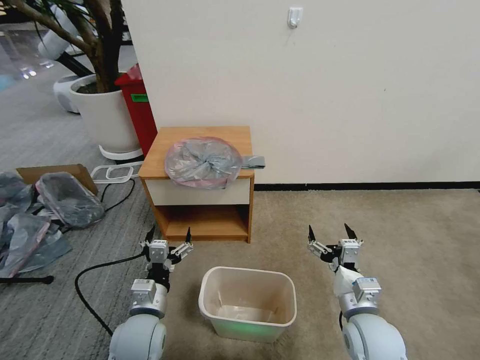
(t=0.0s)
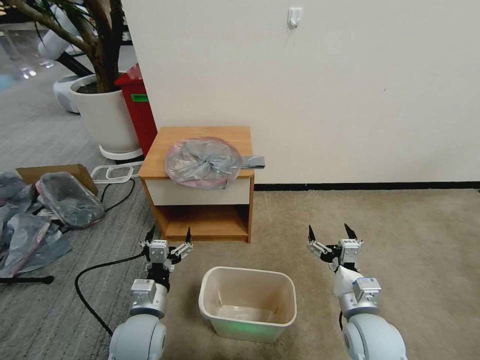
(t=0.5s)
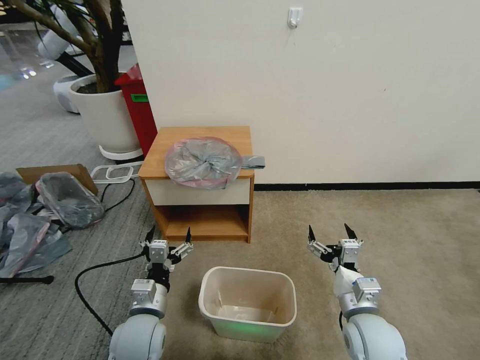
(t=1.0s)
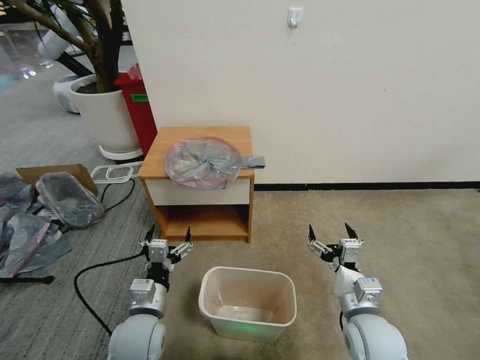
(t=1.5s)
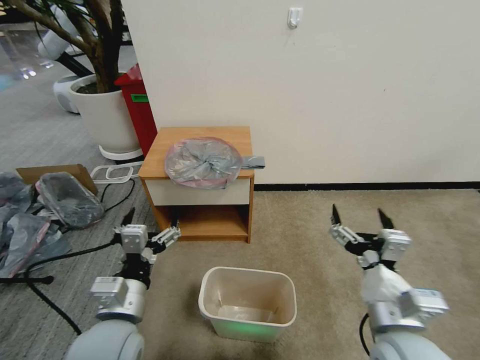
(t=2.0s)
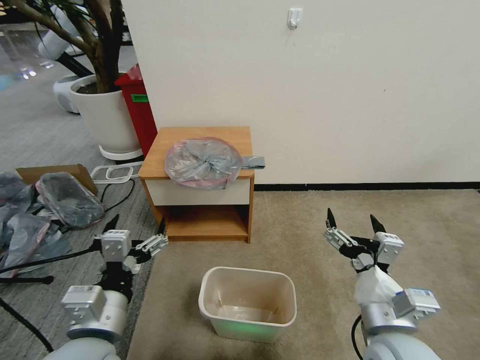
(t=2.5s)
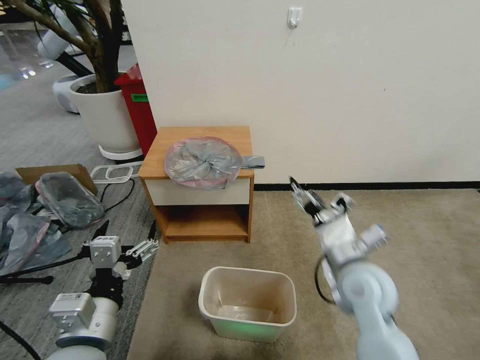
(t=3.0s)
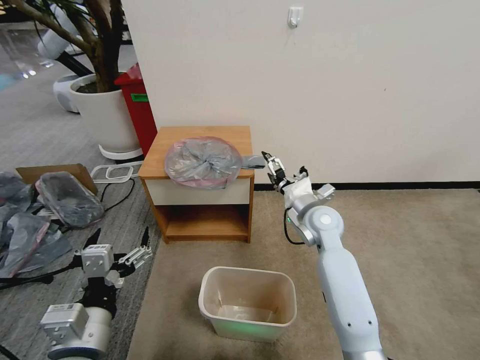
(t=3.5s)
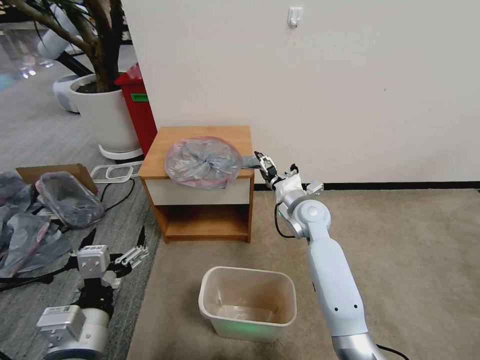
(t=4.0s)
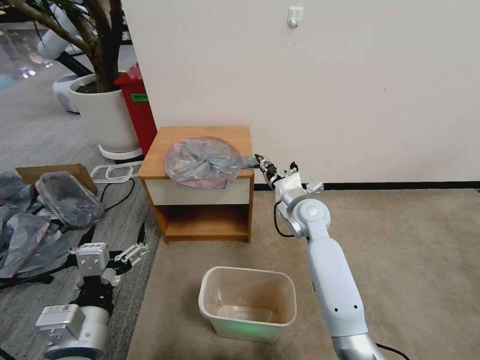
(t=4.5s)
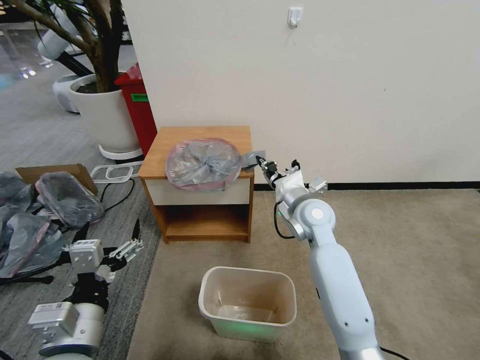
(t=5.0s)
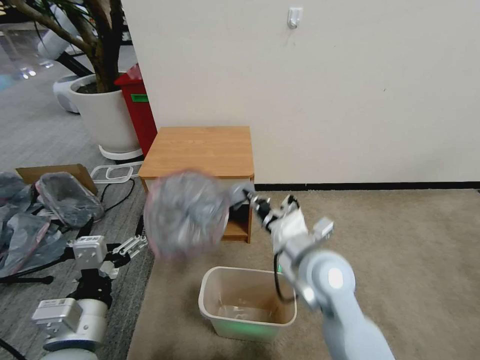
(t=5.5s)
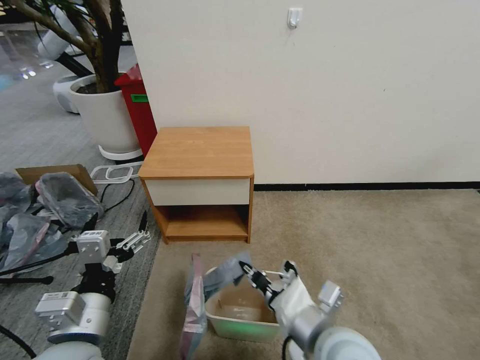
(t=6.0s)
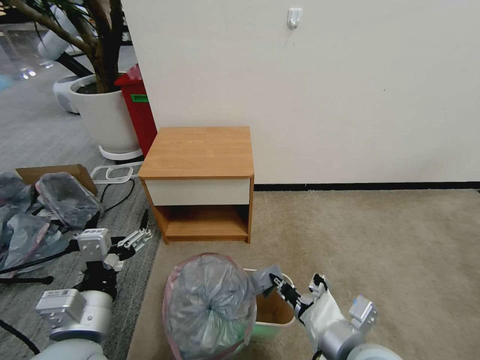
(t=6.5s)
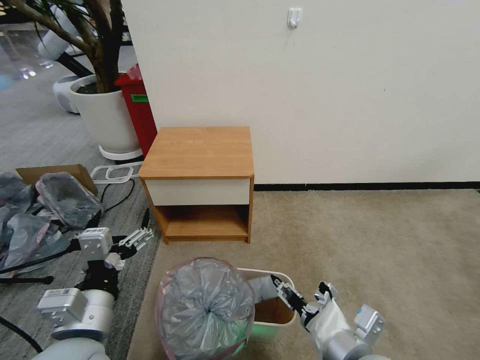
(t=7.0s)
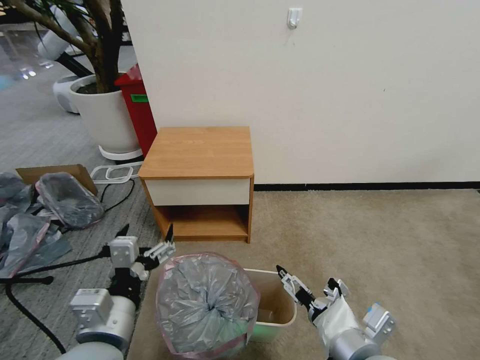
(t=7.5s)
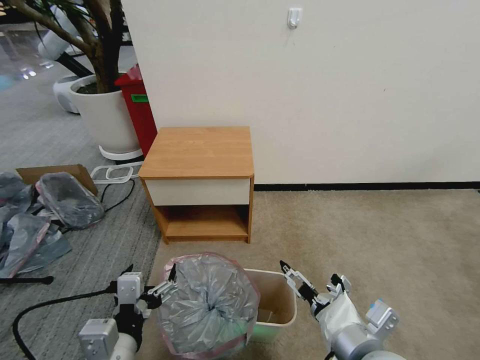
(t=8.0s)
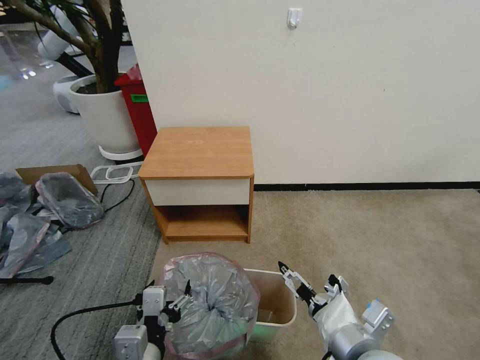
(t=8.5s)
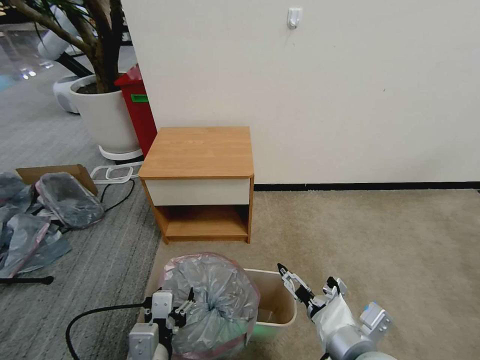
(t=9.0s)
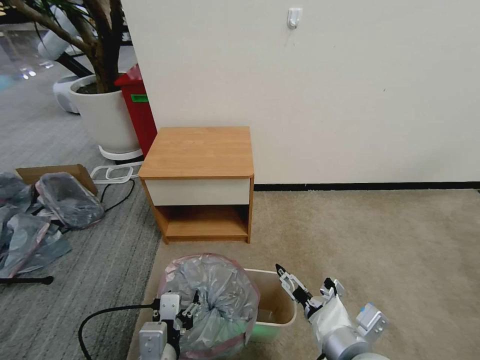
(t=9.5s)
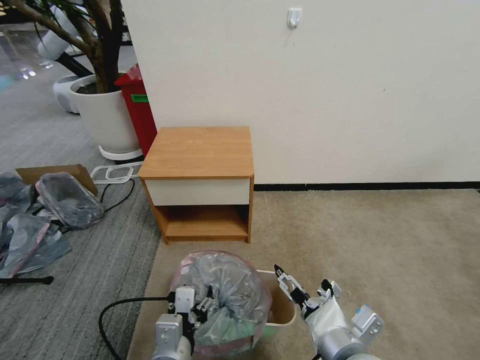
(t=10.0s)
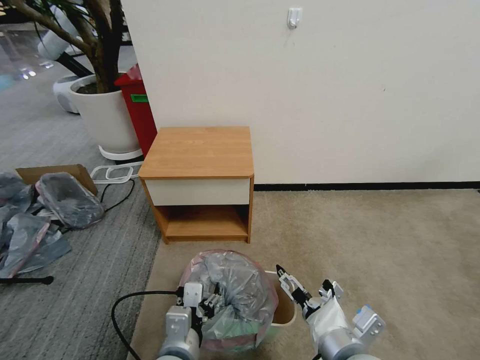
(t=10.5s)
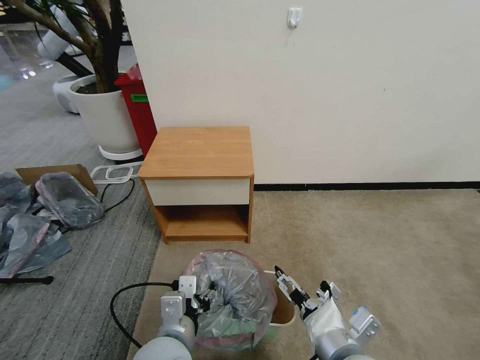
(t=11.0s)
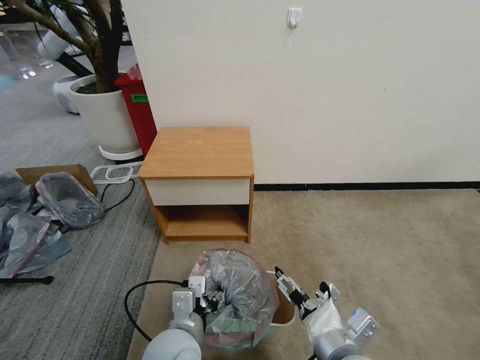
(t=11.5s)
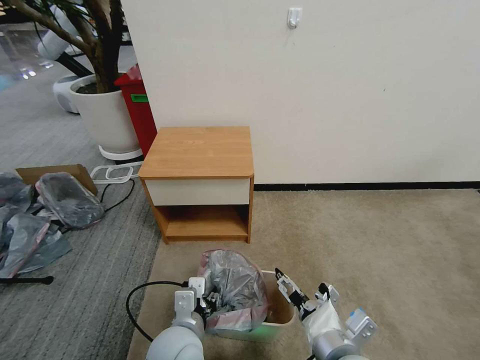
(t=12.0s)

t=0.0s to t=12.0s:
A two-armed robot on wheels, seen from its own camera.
Task of the whole recording: Pick up the garbage bag from the table and place it over the trash can.
t=2.0s to t=4.0s: The left gripper goes approximately 5 cm backward. Meanwhile the right gripper travels forward by some 30 cm.
t=4.0s to t=6.0s: The right gripper is displaced backward by some 30 cm, and closes its fingers.
t=6.0s to t=8.0s: The right gripper shifts by approximately 5 cm, and opens, while the left gripper shifts by approximately 5 cm.
t=8.0s to t=10.0s: The left gripper goes approximately 10 cm to the right and downward.
t=10.0s to t=12.0s: The left gripper moves forward, roughly 5 cm.

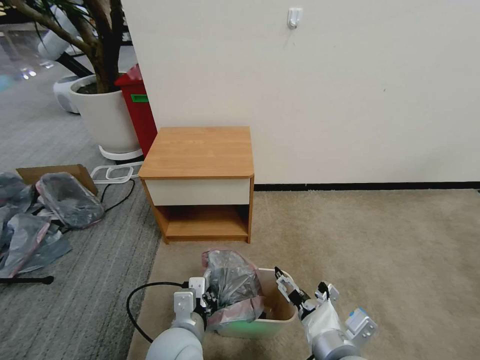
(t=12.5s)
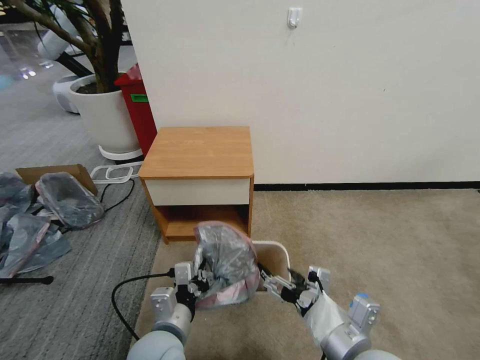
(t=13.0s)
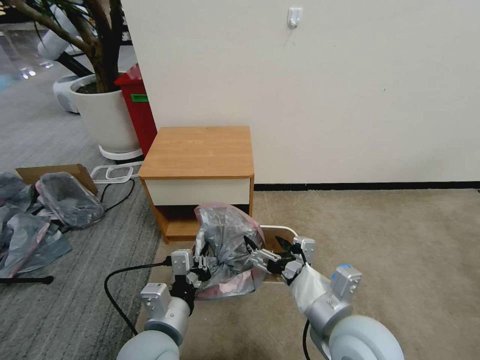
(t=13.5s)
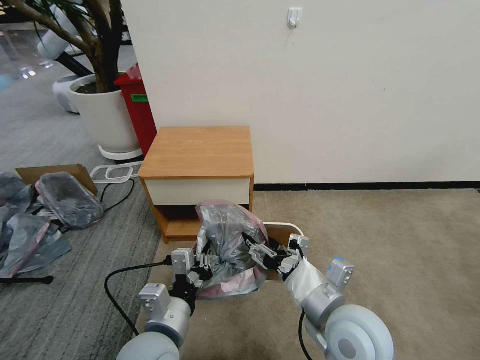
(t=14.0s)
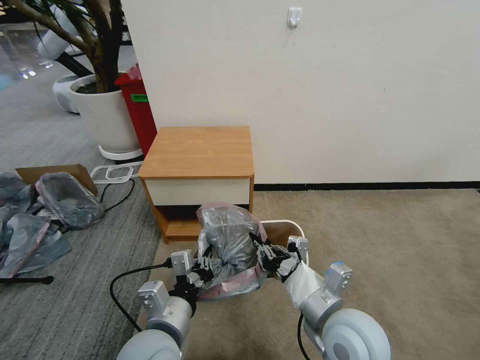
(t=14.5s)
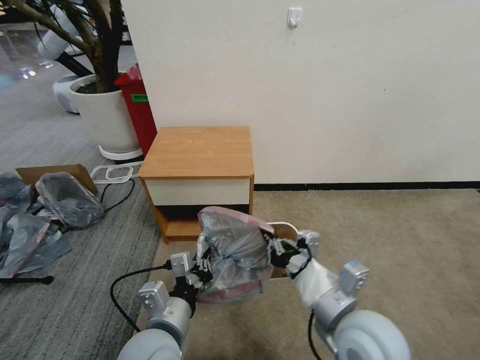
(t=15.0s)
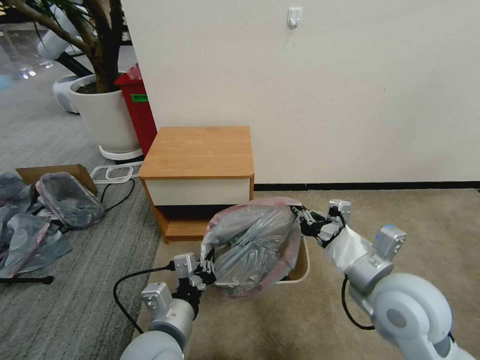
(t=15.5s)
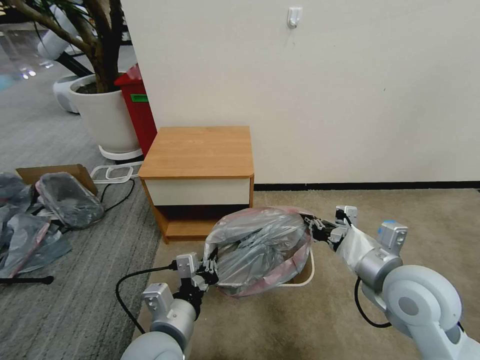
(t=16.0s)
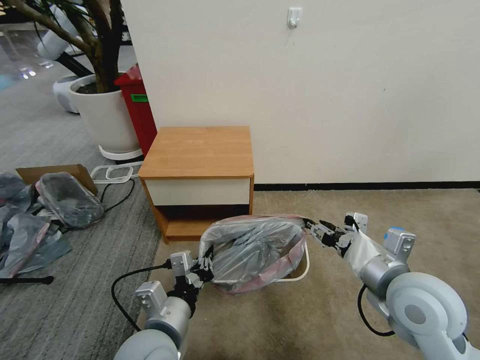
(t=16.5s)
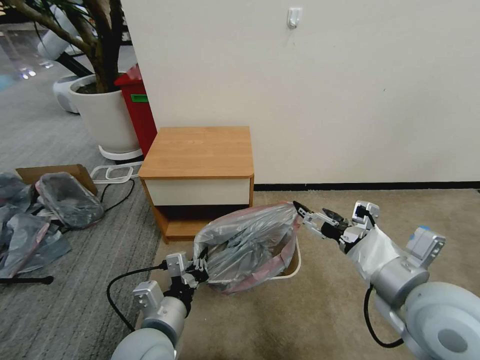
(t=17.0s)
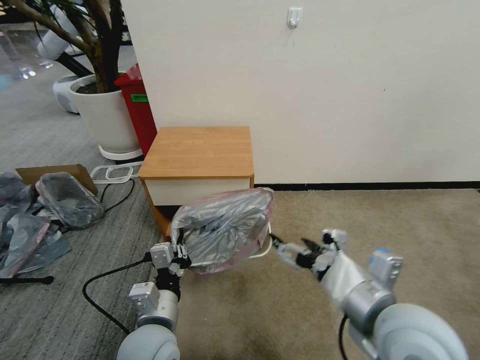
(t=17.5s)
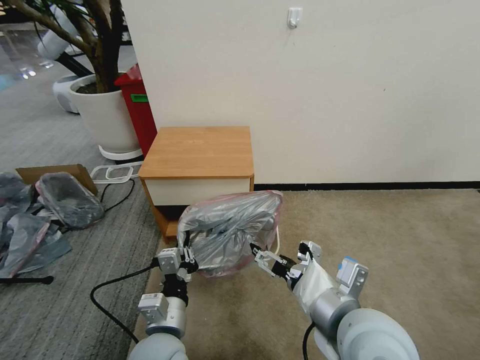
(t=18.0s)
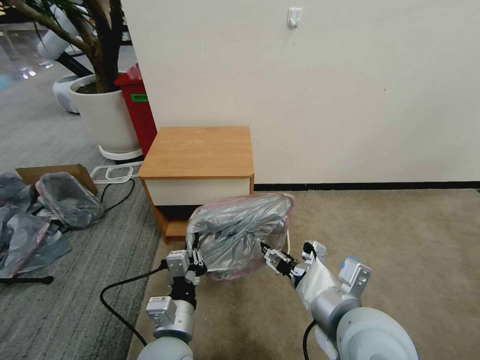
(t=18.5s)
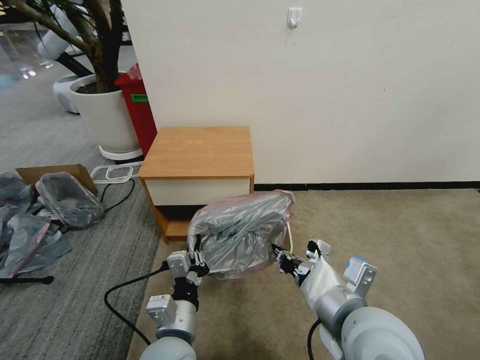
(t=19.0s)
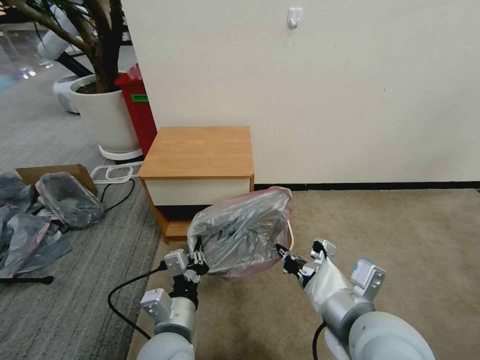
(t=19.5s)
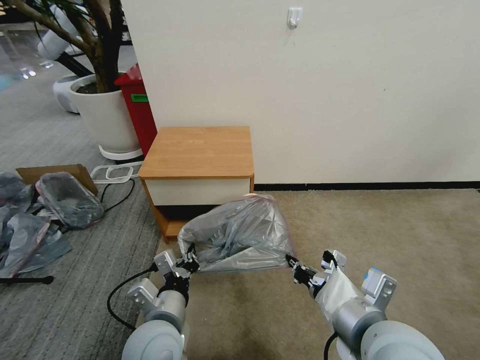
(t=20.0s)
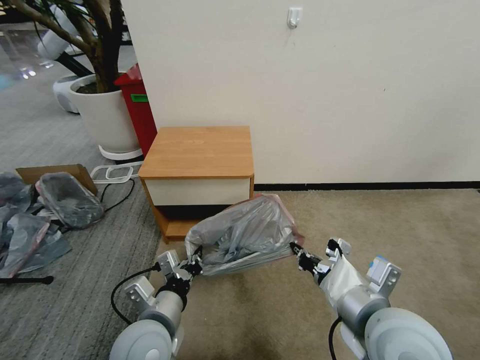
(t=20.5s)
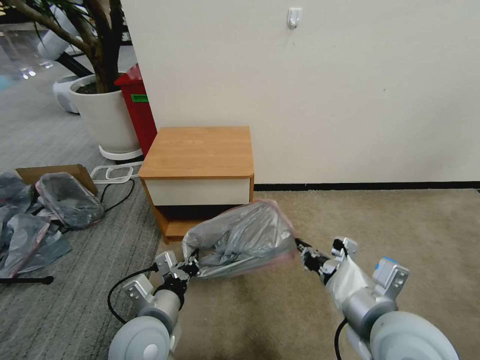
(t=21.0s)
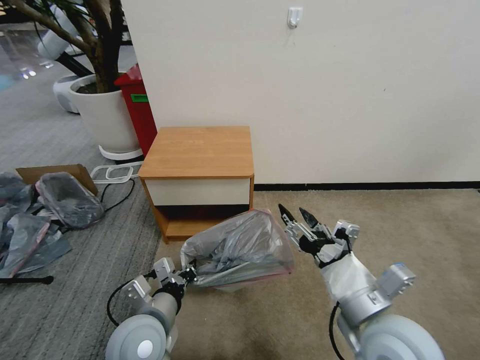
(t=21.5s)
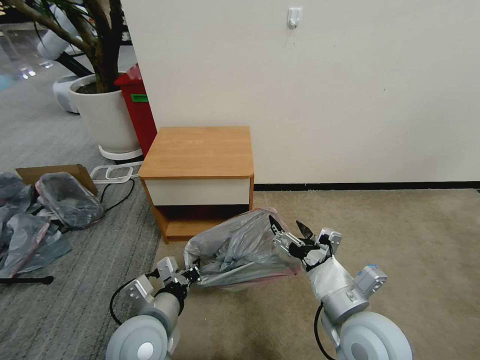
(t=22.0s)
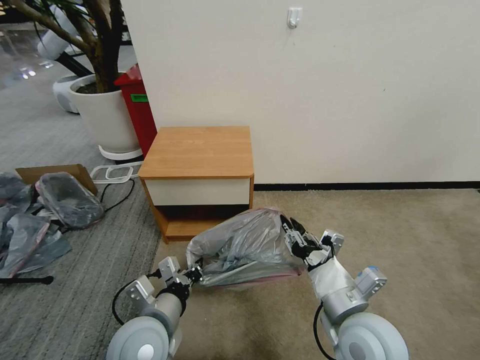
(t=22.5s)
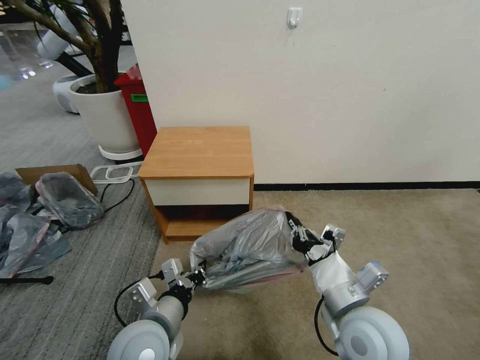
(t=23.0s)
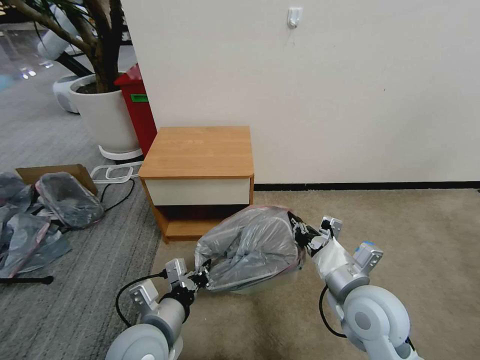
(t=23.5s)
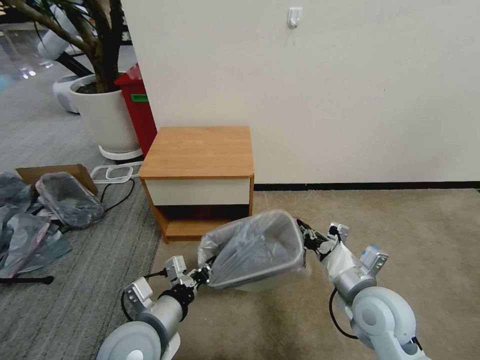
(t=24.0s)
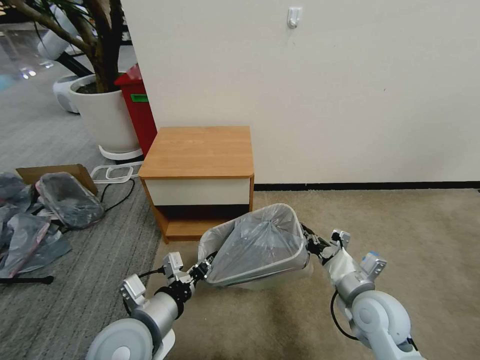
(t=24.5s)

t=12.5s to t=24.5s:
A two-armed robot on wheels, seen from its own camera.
Task of the whole recording: Pick up the garbage bag from the table and place it over the trash can.
t=12.5s to t=14.5s: The right gripper heads forward, covering approximately 5 cm, and closes up. Meanwhile the left gripper is displaced upward by some 5 cm.
t=14.5s to t=16.5s: The right gripper goes some 10 cm to the right and upward, and opens its fingers.
t=16.5s to t=18.5s: The right gripper heads to the left and backward, covering about 10 cm, and opens, then closes again. Meanwhile the left gripper moves approximately 5 cm.
t=18.5s to t=20.5s: The right gripper closes up. The left gripper moves some 5 cm.
t=20.5s to t=22.5s: The right gripper travels downward by roughly 5 cm, and opens its fingers.
t=22.5s to t=24.5s: The right gripper goes about 10 cm to the right, downward and forward, and closes up.

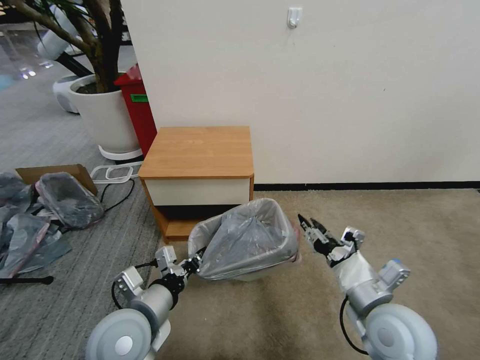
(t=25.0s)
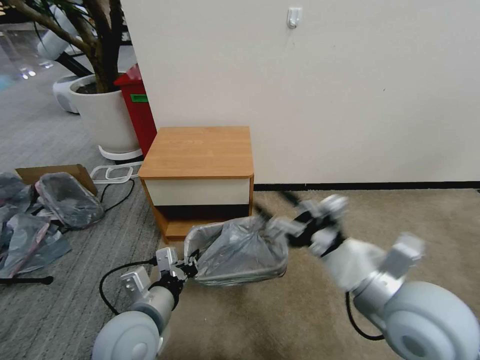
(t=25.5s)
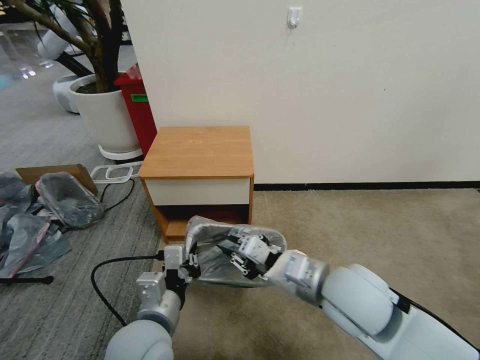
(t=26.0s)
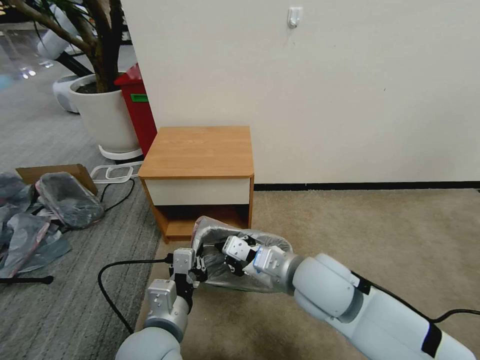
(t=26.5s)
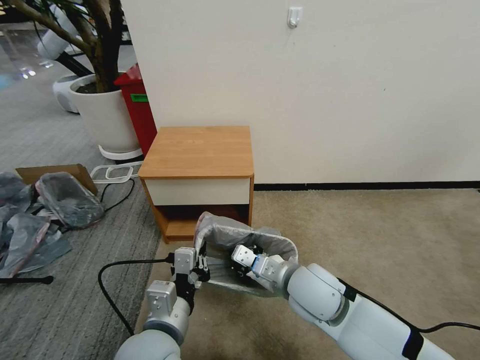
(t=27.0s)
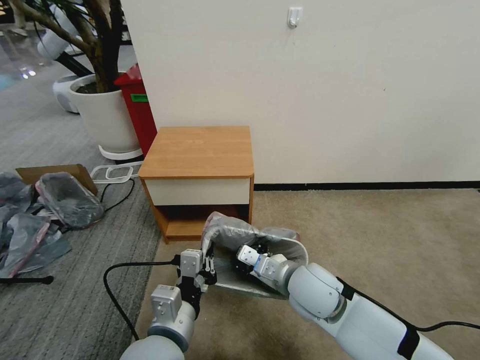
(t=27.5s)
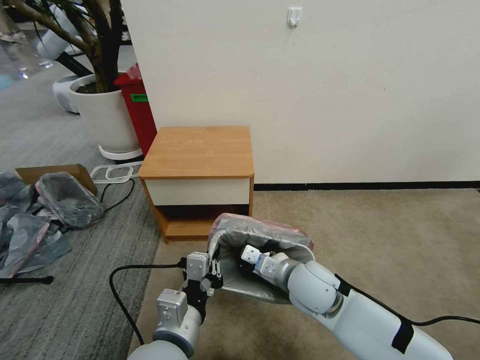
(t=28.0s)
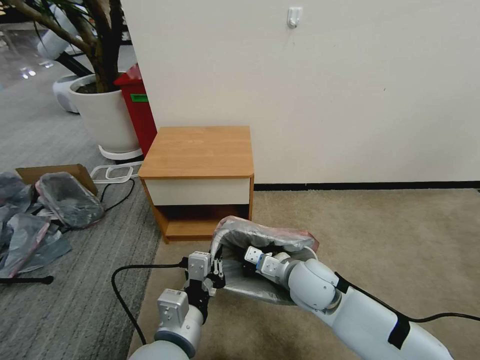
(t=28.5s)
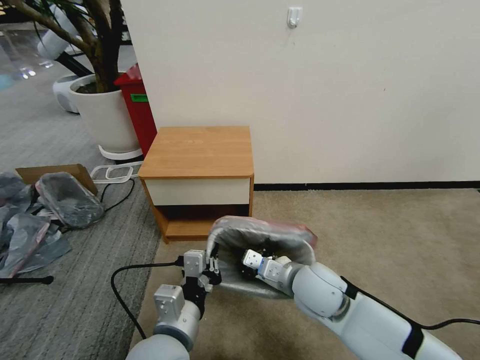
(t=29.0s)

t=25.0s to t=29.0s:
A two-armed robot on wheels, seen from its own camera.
Task of the whole recording: Pick up the garbage bag from the table and place it over the trash can.
t=25.0s to t=27.0s: The left gripper moves to the right, some 5 cm, while the right gripper heads to the left and forward, covering approximately 15 cm, and closes its fingers.
t=27.0s to t=29.0s: The grippers move only a little.
